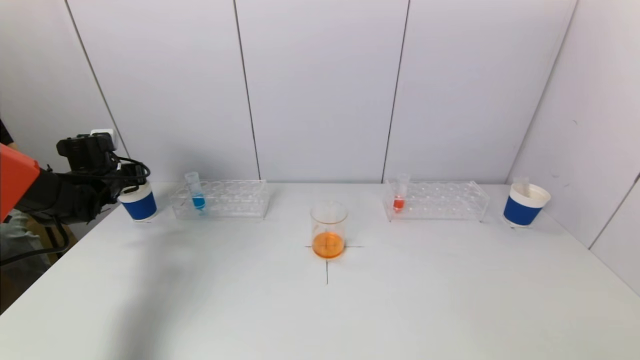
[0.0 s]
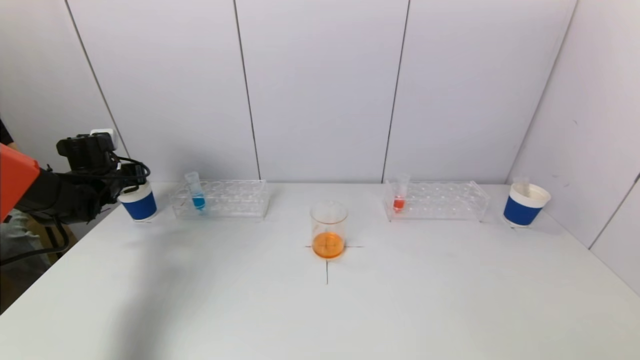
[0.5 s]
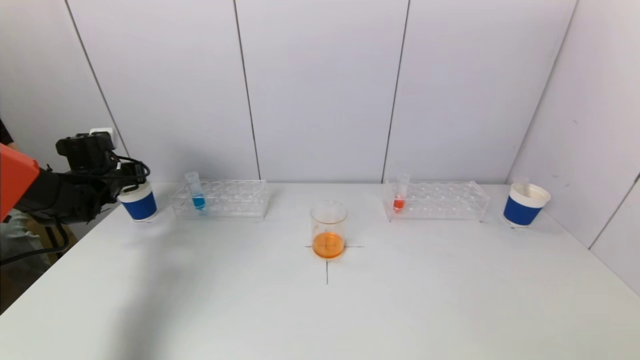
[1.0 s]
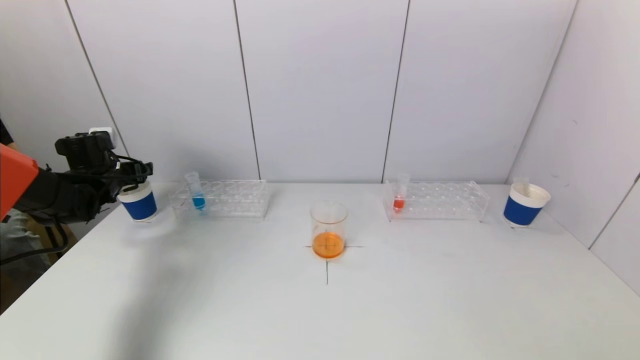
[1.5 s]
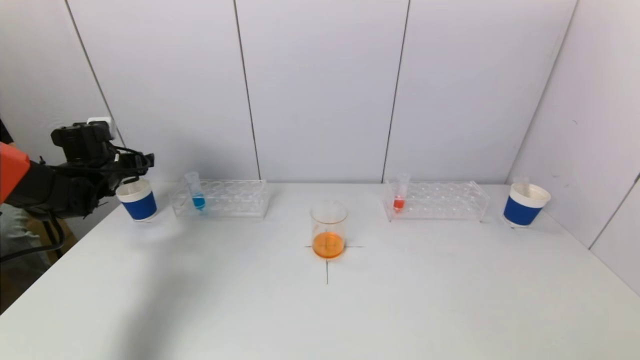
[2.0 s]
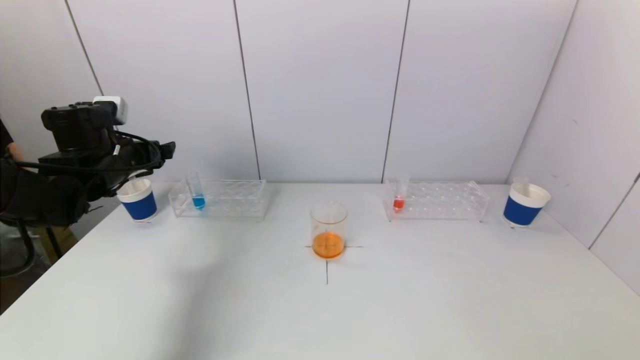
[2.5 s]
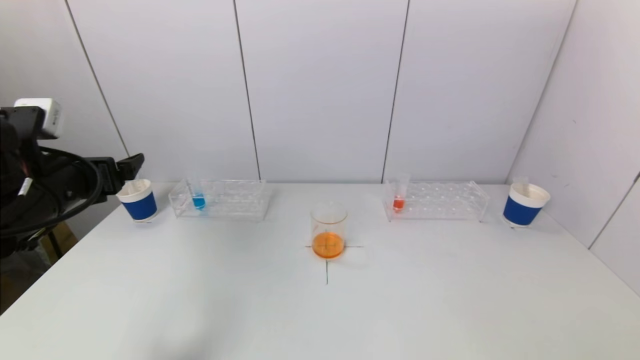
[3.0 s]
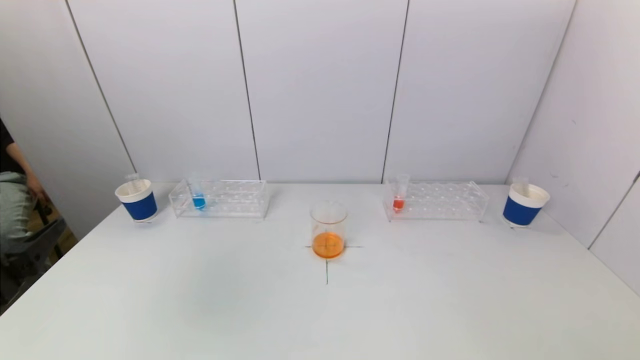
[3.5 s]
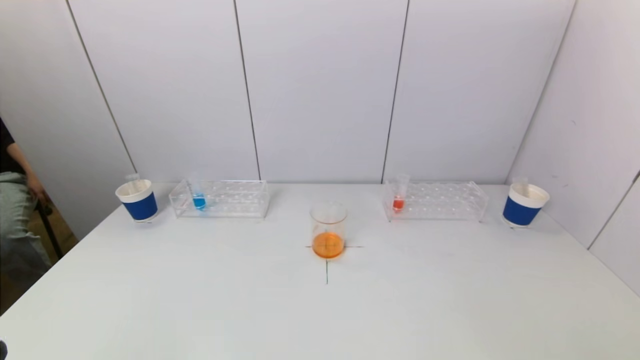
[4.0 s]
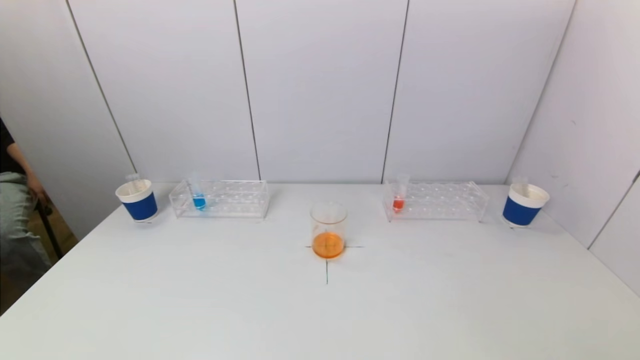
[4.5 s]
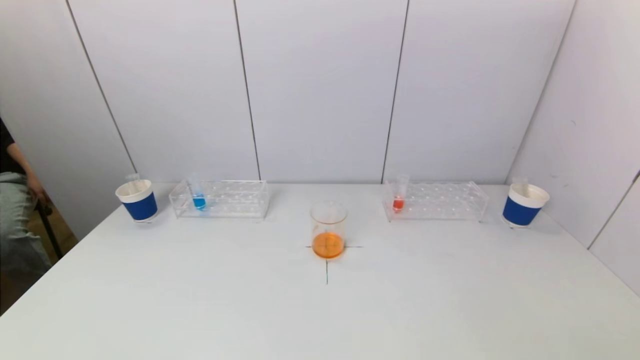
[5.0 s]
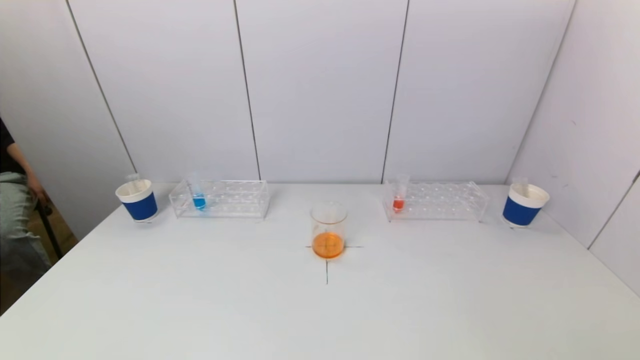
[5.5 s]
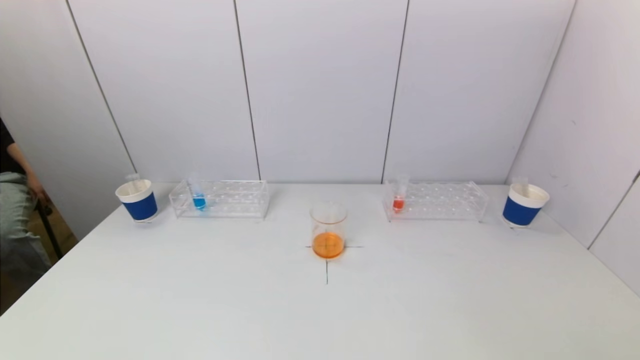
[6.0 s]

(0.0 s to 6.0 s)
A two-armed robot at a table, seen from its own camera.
Task of the whole recording: pick up a test tube with pigment on left test tube rack and a test tube with pigment on right test tube rack by grippers and pour them into the beaker.
0.0 s - 2.0 s: The left gripper opens.
2.0 s - 4.0 s: The left gripper heads backward, covering some 40 cm.
